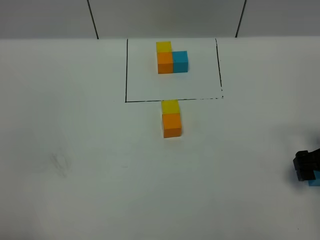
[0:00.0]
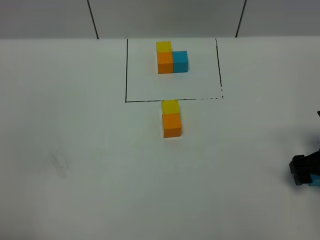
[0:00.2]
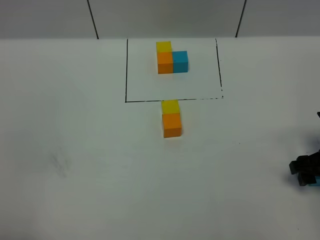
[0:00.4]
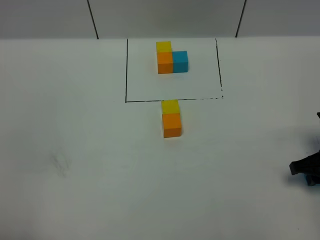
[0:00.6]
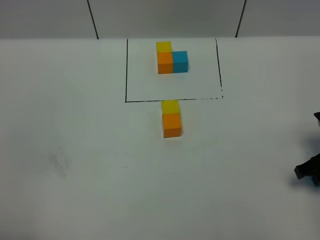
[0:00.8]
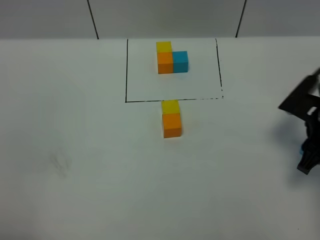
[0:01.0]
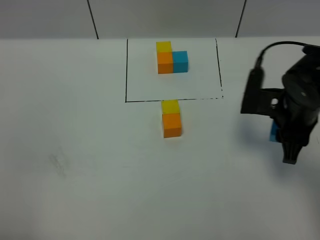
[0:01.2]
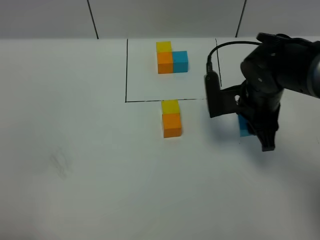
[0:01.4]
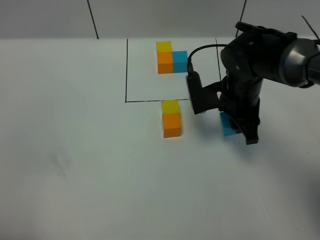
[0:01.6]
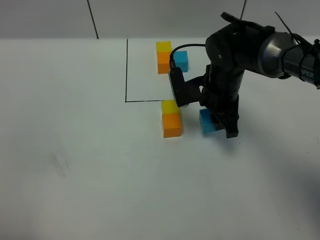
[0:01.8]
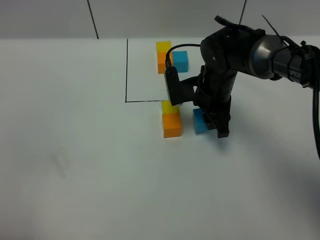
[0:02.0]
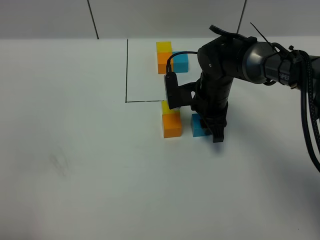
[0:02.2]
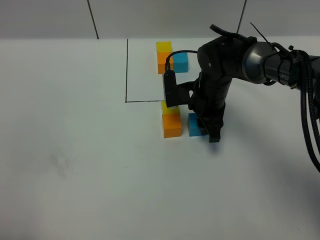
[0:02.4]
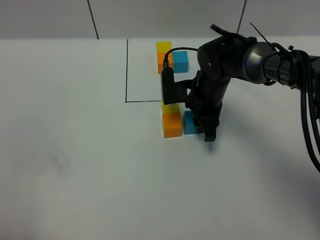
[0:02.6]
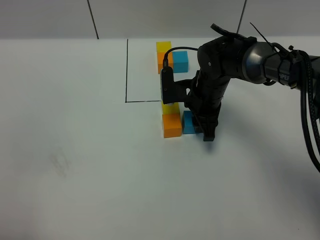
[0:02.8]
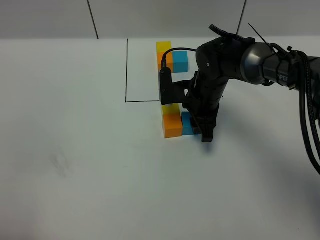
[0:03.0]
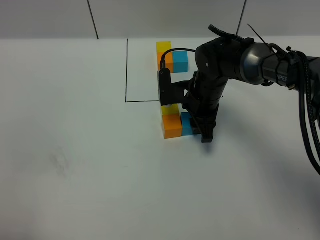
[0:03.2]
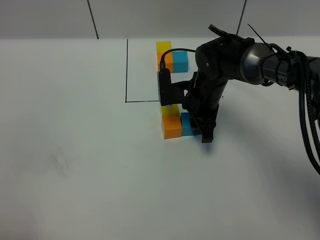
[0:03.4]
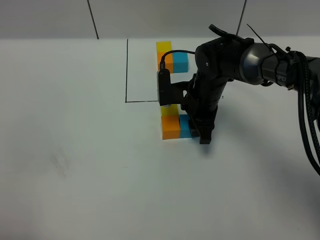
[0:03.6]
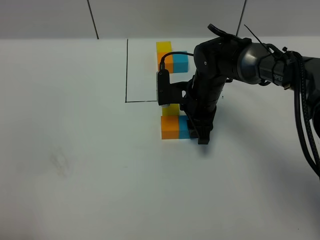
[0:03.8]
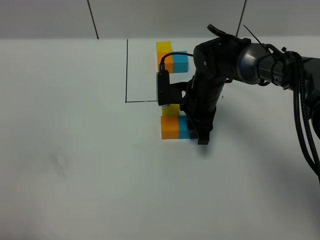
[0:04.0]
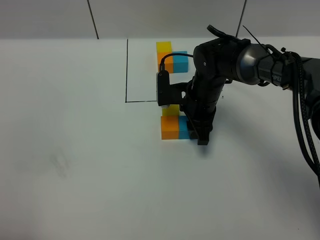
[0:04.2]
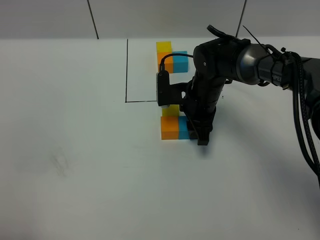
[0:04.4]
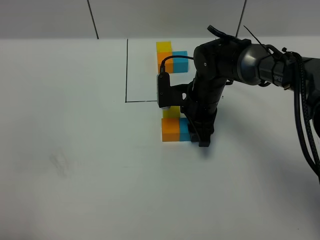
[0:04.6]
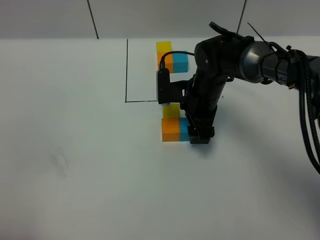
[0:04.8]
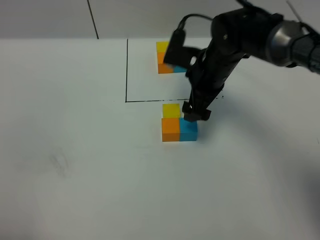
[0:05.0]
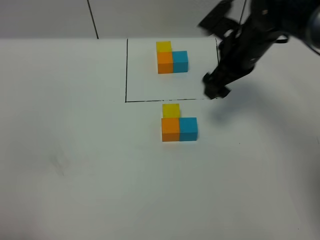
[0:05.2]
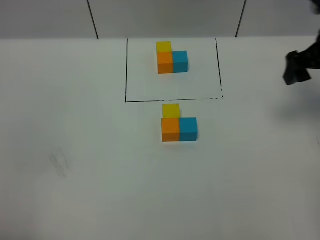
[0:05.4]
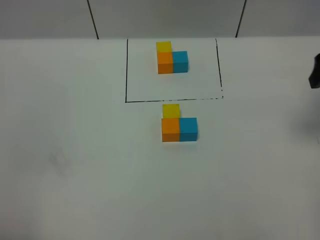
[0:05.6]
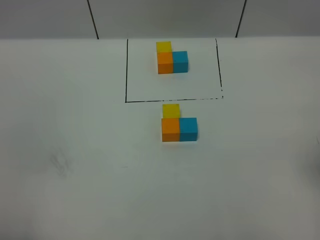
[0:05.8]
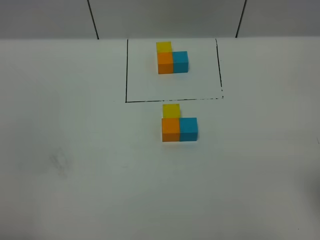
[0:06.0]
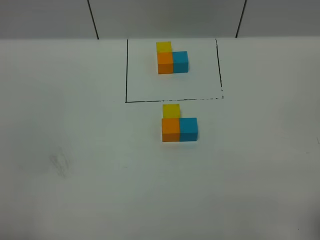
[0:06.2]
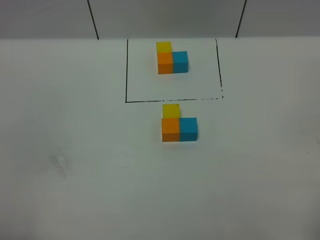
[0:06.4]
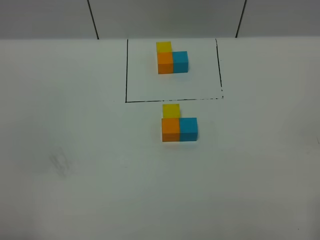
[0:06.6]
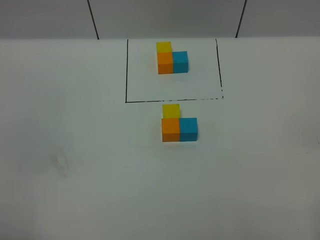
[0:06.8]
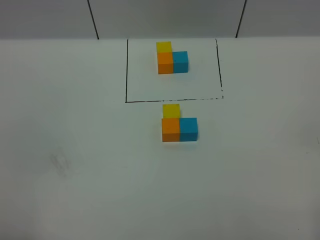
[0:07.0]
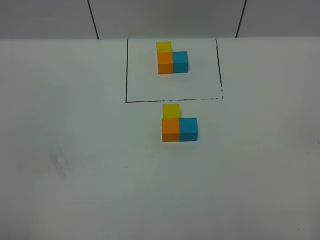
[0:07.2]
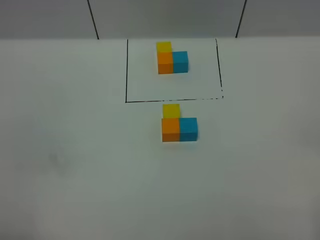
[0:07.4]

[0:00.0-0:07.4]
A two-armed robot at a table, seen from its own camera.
Task of the whole recording: According to the building block template in front, assemble the scattered blocks together.
Step, 0:00.0 to 0:04.6: Put the blue build block on the right of the orange build block.
0:00.0 to 0:01.4: The right gripper travels to the left and forward by some 20 cm, and closes up.
0:01.4 to 0:03.0: The right gripper goes approximately 10 cm to the left, downward and forward.
0:03.0 to 0:04.4: The grippers move only a little.
0:04.4 to 0:06.0: The right gripper moves backward, to the right and upward, some 40 cm, and opens up.

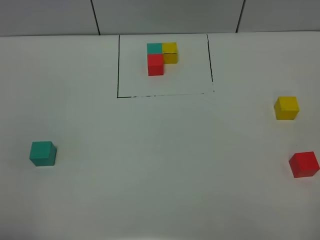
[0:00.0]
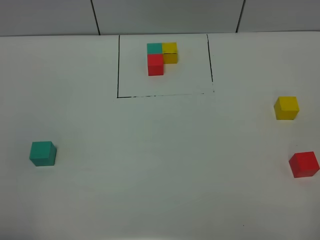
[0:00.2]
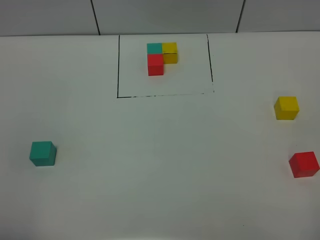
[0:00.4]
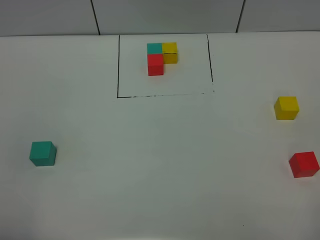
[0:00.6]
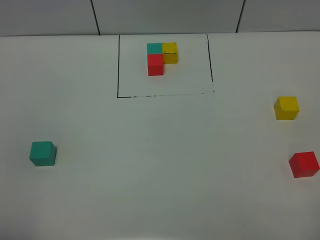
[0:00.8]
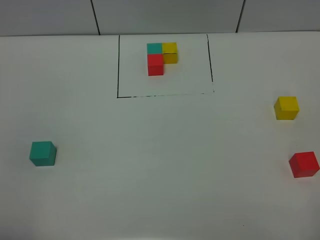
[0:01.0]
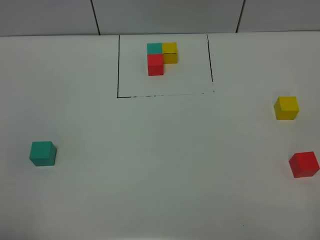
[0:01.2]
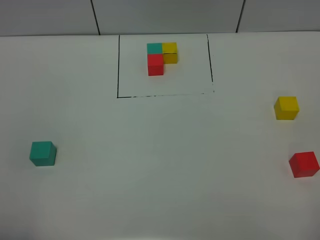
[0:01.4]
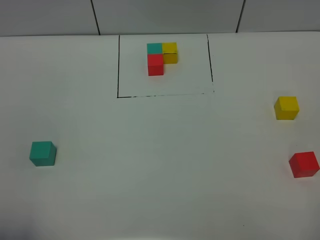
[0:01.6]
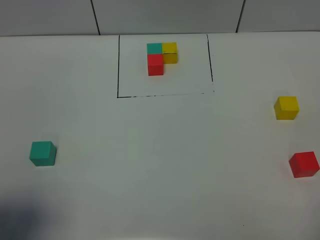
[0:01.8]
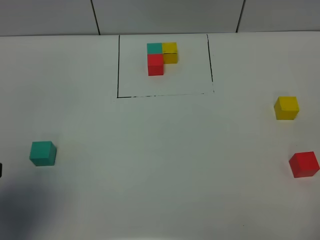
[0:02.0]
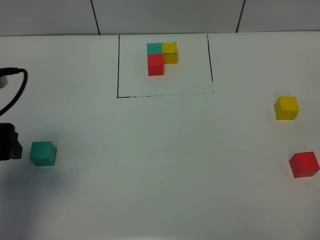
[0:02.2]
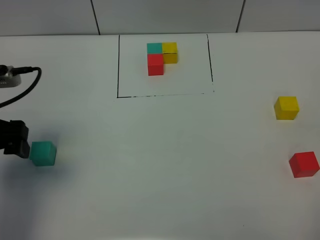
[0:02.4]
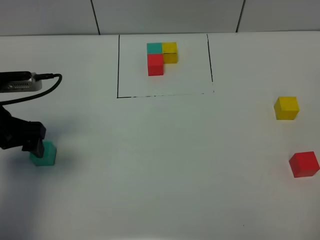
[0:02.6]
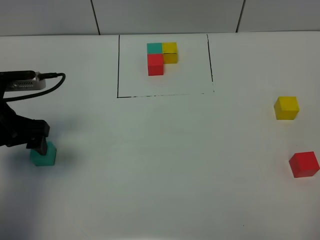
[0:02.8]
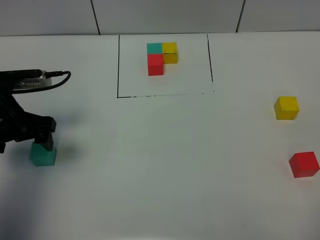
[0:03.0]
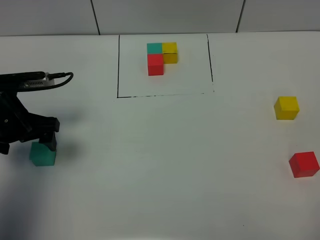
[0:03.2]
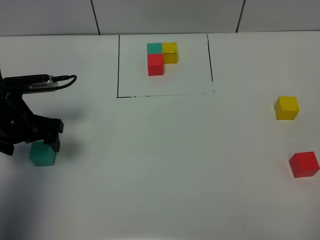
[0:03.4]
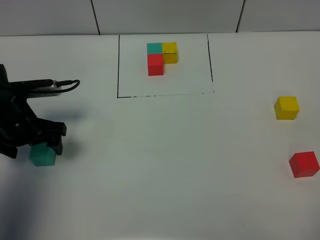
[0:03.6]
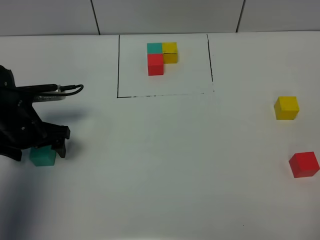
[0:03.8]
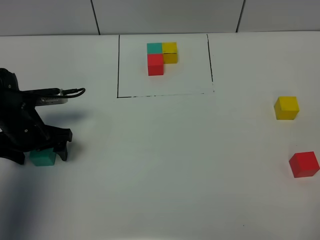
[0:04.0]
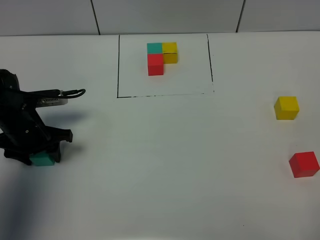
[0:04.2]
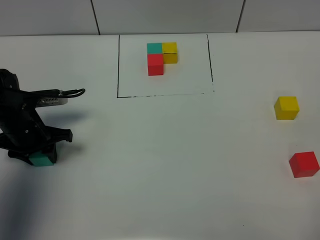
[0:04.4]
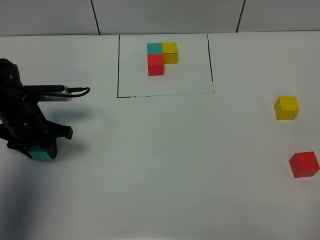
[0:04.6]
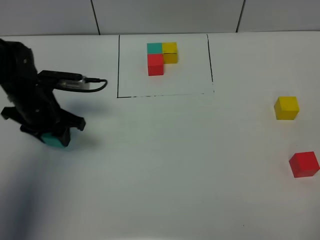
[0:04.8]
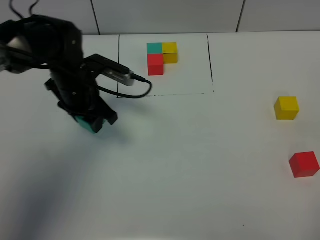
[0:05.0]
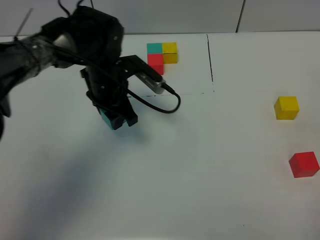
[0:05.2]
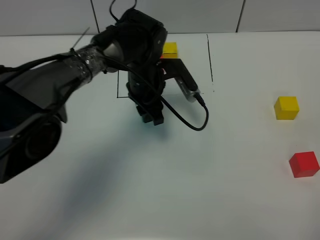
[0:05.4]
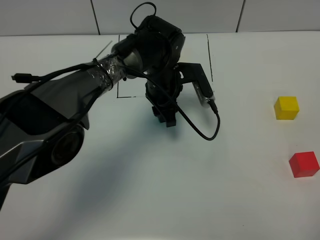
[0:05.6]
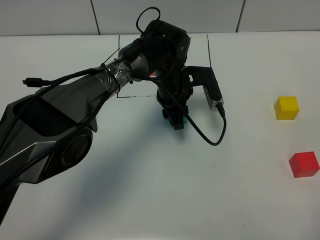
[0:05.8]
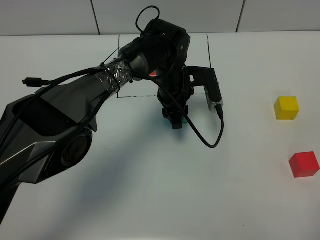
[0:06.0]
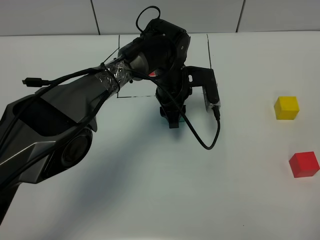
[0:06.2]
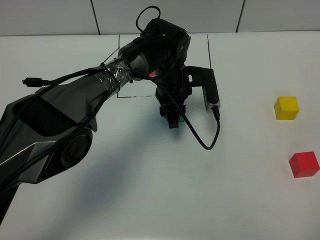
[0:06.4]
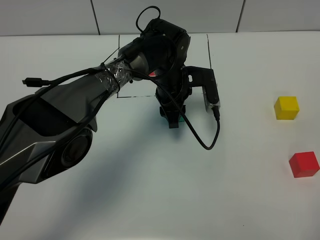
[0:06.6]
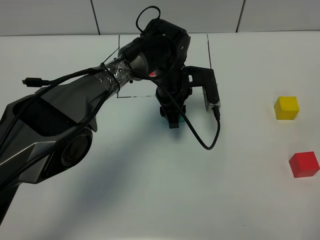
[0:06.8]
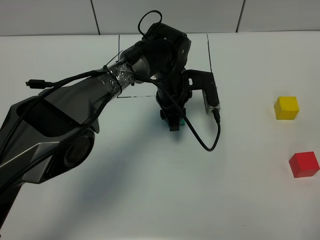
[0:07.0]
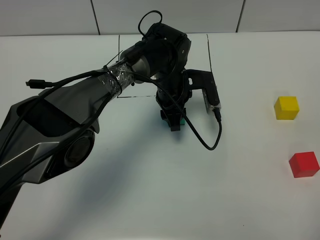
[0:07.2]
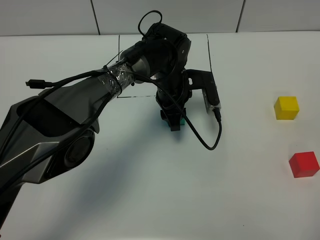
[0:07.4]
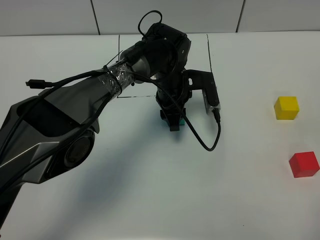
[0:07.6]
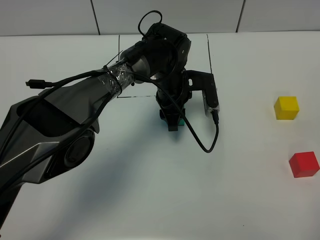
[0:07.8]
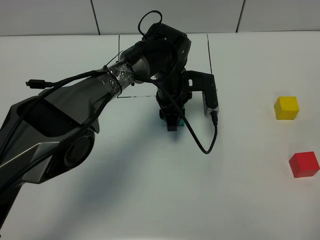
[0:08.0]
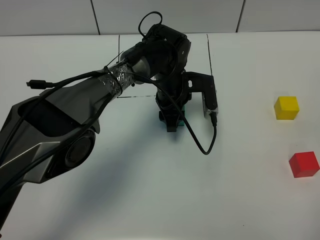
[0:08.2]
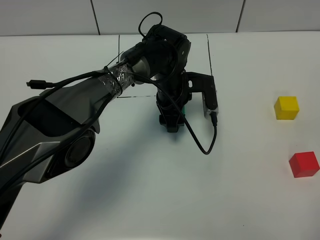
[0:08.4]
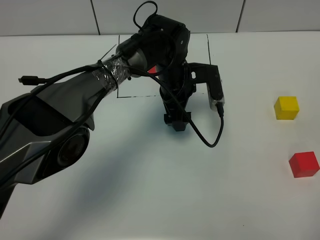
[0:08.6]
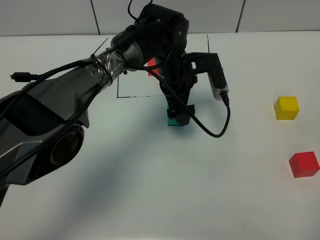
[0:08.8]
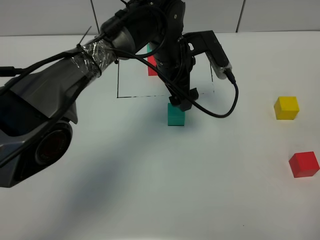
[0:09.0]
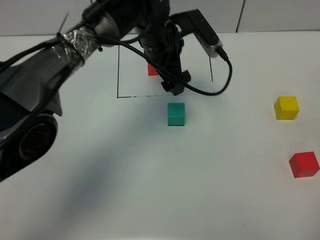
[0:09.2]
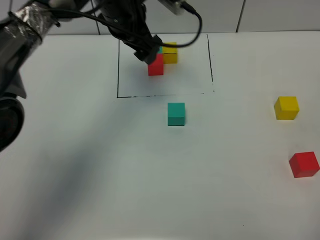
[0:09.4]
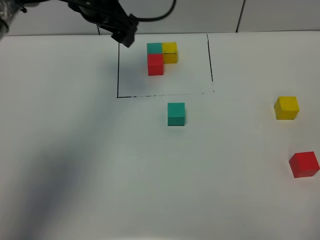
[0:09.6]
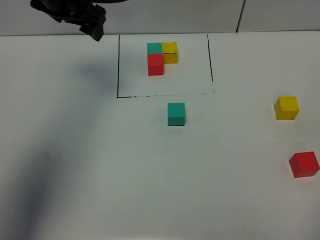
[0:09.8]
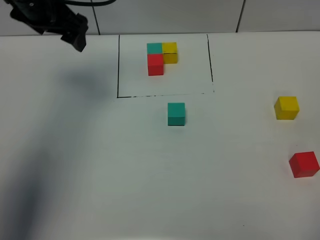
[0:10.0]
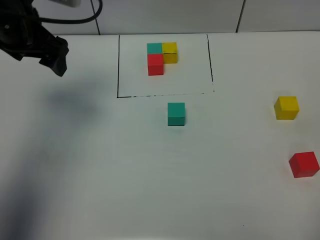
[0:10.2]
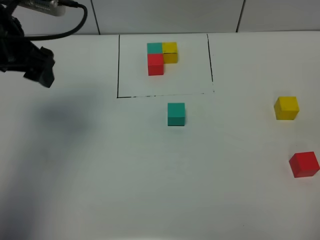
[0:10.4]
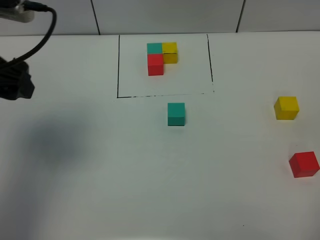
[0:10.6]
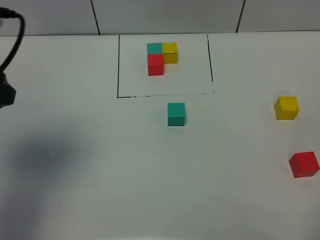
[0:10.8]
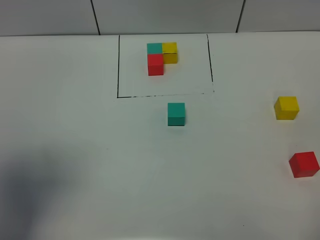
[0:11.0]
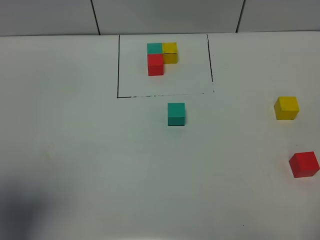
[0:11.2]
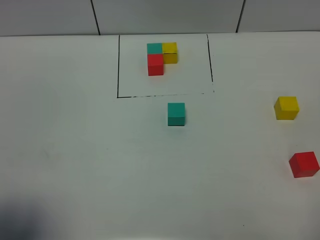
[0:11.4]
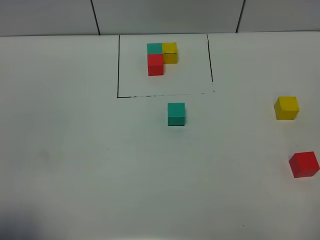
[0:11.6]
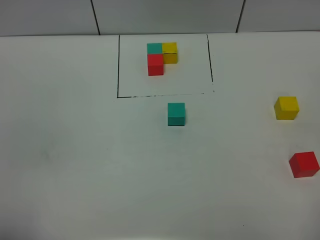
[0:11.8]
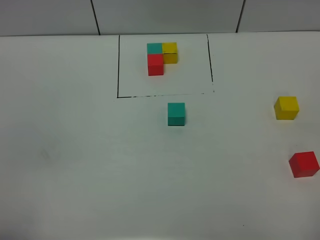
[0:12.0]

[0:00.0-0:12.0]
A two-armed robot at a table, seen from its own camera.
Task of the whole recording: According to the building block template in front, assemble the scattered blocks together.
Step, 0:00.0 to 0:08.6: Put the green build block in the center of the table.
0:01.6 to 0:03.0: The left gripper goes approximately 25 cm forward.
0:03.0 to 0:04.4: The left gripper moves downward, approximately 10 cm, and closes its fingers.
0:04.4 to 0:06.0: The left gripper travels to the right by roughly 30 cm.
0:06.0 to 0:07.6: Neither gripper changes place.
0:07.6 to 0:09.0: The left gripper heads upward, covering some 10 cm, and opens up.
0:09.0 to 0:10.4: The left gripper goes about 30 cm to the left and upward.
0:10.4 to 0:12.0: The left gripper is displaced backward by about 35 cm.

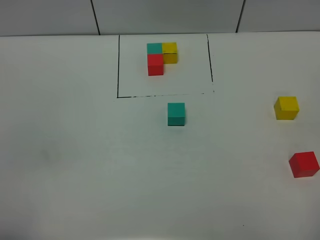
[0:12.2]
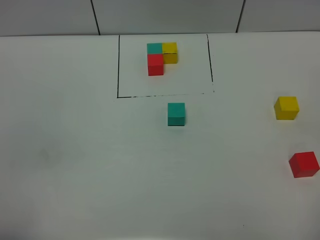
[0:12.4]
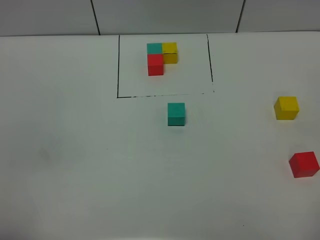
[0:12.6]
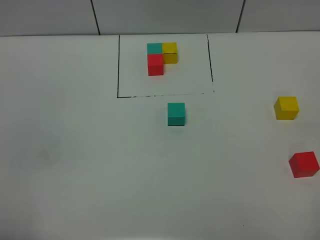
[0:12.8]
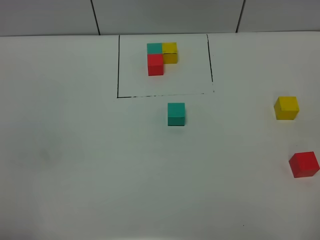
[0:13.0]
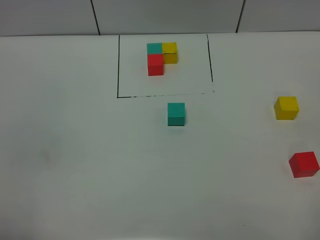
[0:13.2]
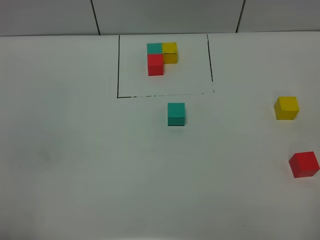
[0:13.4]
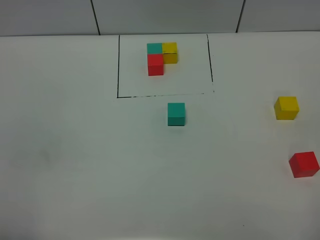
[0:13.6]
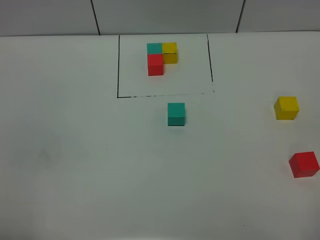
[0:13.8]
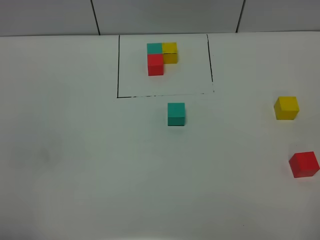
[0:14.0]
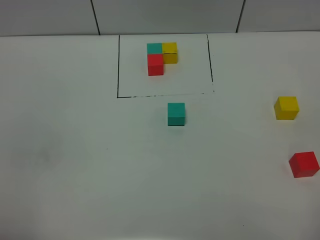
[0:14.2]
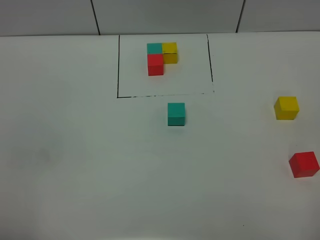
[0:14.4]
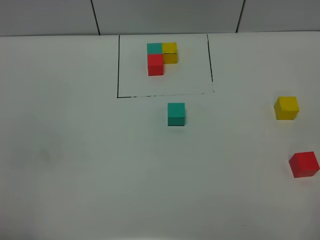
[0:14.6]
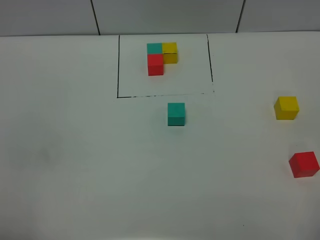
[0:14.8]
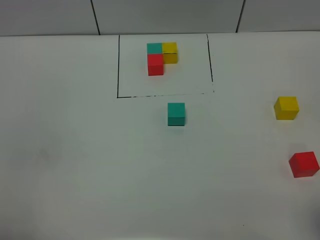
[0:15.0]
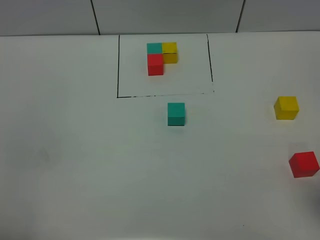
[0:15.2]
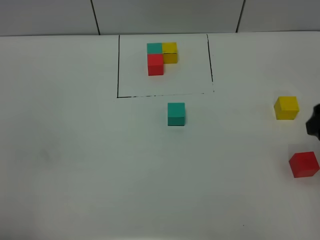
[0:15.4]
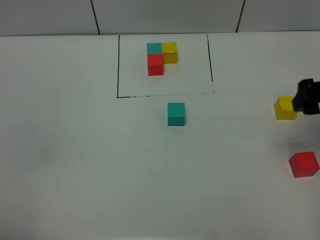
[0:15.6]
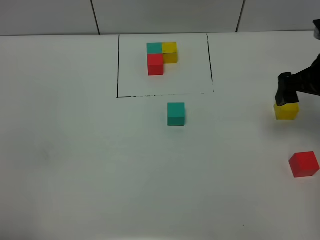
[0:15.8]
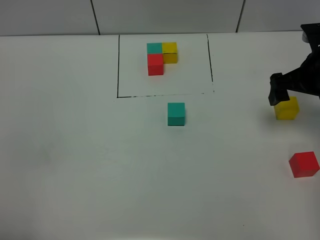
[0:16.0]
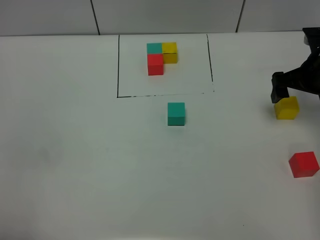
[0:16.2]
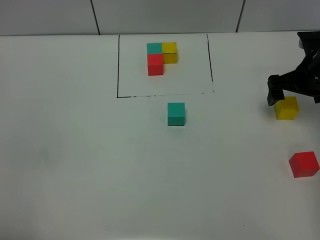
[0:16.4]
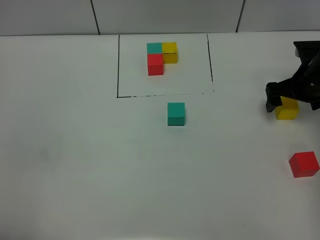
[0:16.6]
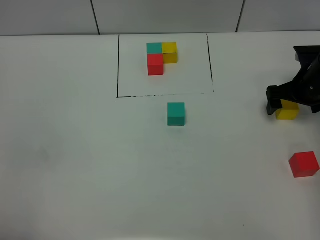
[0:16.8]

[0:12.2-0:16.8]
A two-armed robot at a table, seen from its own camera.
Task of the whole recording: According to the building block template in front, assemble the scattered blocks together.
0:15.2 to 0:16.8: The right gripper goes approximately 30 cm forward and downward.
